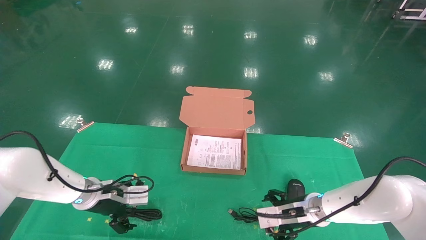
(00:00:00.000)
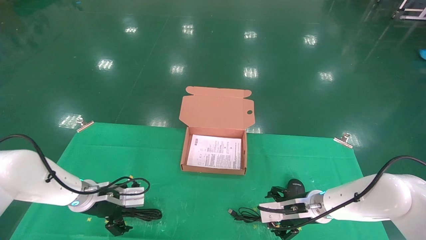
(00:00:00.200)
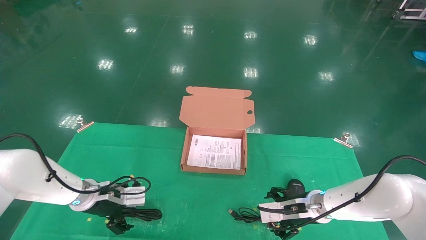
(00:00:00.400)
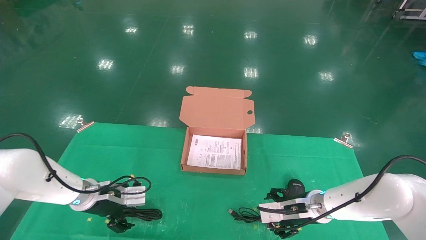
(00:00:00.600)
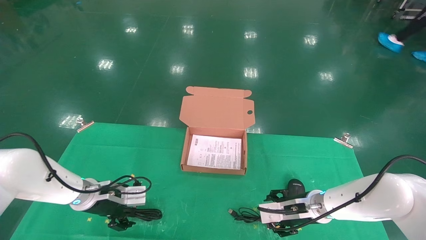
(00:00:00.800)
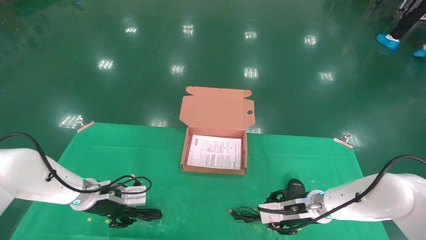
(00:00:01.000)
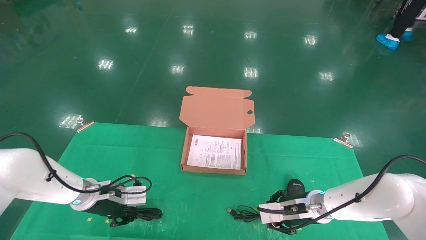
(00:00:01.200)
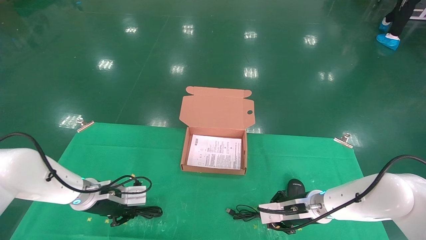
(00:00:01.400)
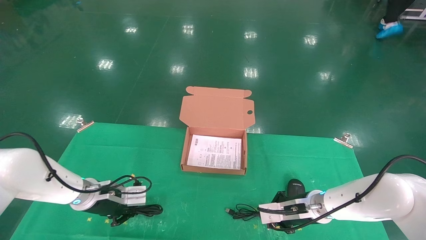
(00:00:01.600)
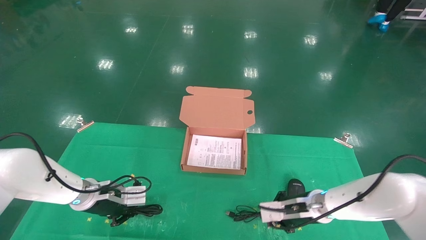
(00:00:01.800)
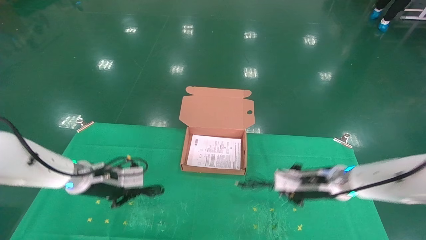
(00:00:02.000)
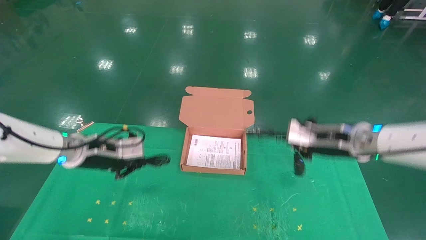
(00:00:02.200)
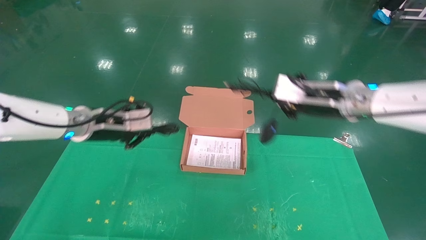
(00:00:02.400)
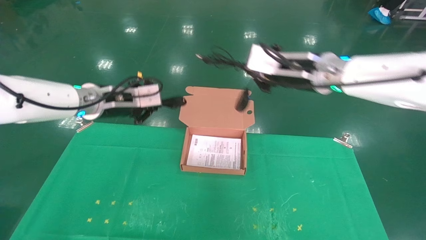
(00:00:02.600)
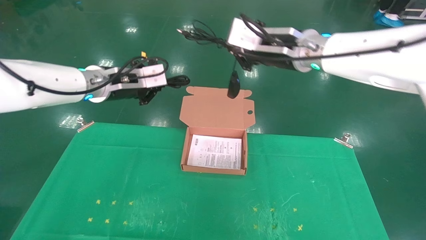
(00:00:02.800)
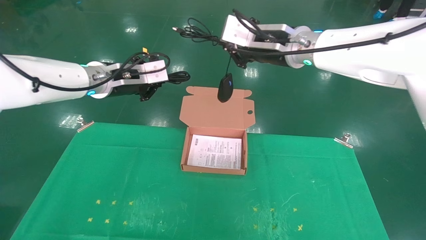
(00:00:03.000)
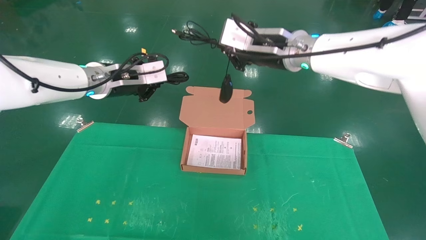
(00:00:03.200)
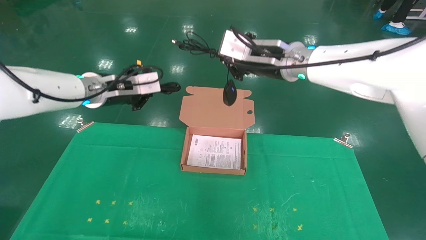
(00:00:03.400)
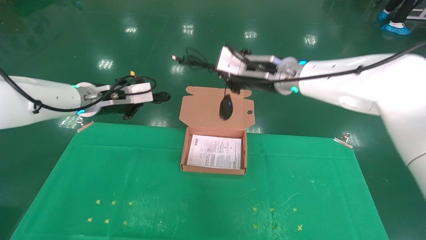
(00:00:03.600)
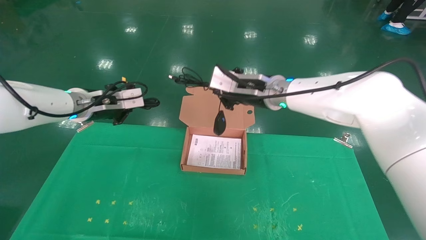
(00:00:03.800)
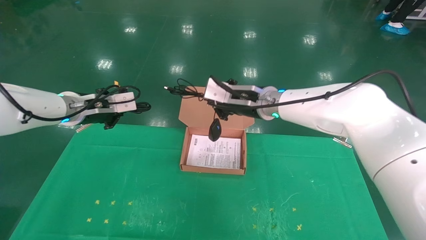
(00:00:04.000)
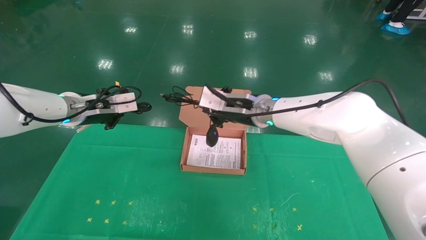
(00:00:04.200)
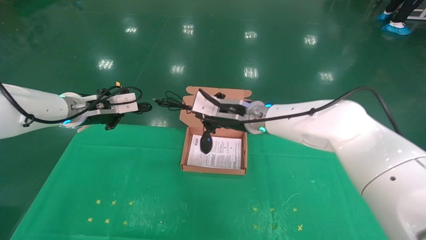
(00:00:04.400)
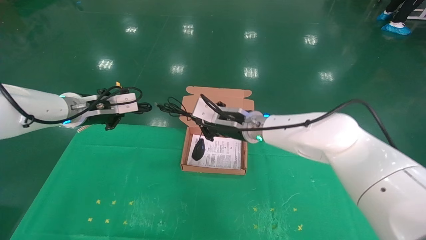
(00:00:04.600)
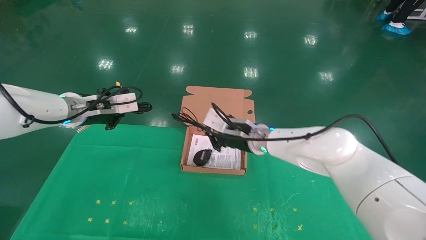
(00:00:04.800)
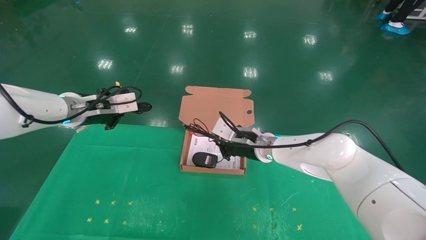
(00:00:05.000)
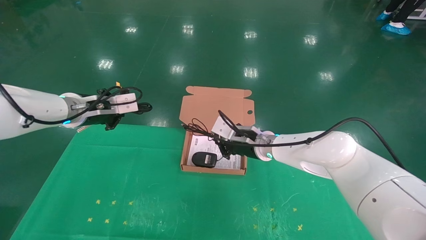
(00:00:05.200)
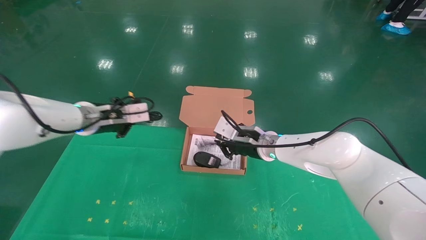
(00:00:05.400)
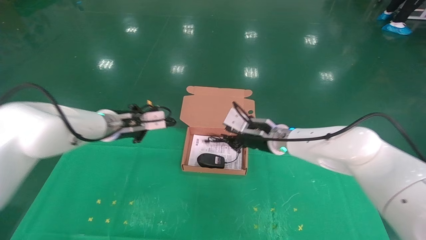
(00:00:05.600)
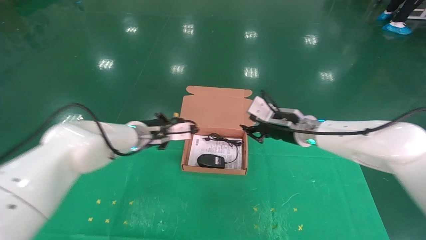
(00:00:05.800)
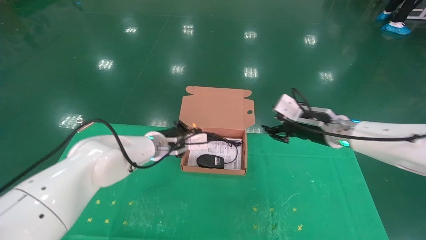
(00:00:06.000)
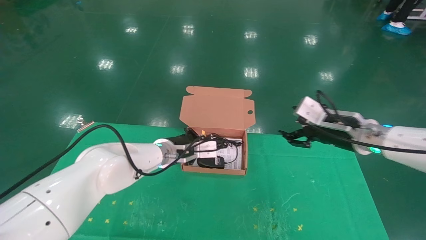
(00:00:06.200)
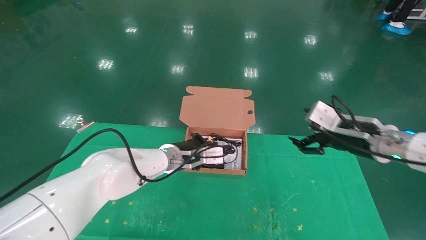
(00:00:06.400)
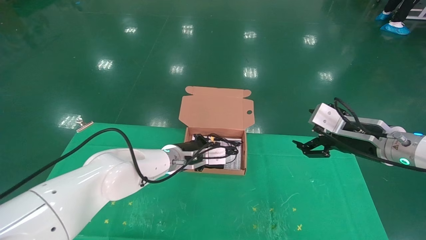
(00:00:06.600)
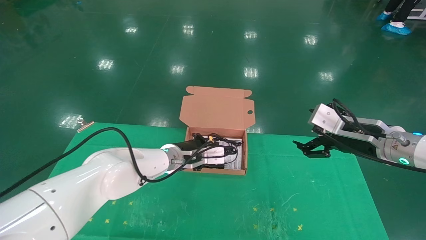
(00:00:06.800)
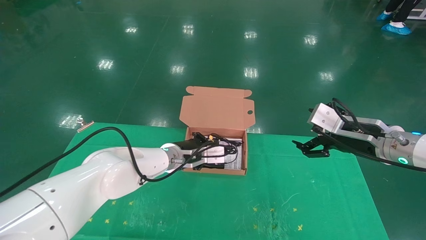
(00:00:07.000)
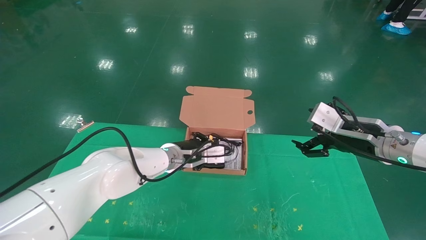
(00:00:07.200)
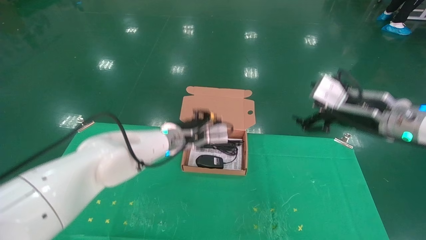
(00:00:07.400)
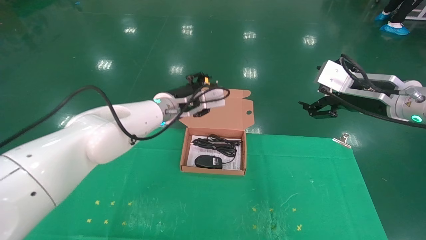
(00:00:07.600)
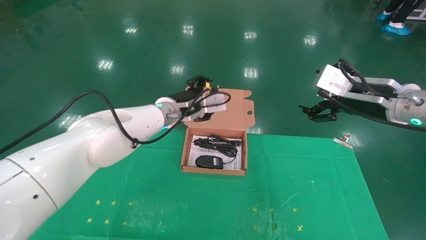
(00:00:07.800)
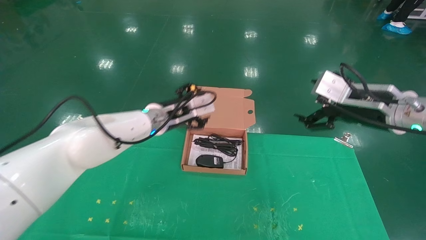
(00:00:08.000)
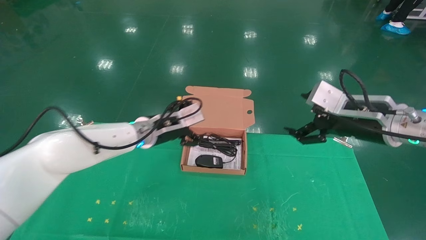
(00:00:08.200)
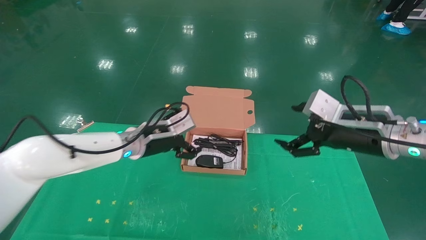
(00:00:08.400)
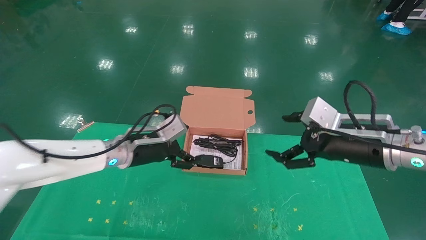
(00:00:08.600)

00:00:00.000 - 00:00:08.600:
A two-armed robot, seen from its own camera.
Task of the whole recording: grasp data cable left put into box grasp mouse right put into box.
Step, 00:00:02.000 - 00:00:07.000: Place the mouse and power cord into the box.
00:00:00.000 - 00:00:01.400: The left gripper closes, while the right gripper closes its fingers.
00:00:01.400 - 00:00:02.800: The grippers both shift upward by roughly 30 cm.
00:00:02.800 - 00:00:04.400: The right gripper is displaced downward and to the left by some 15 cm; the left gripper is displaced to the left by about 5 cm.
00:00:04.400 - 00:00:05.800: The right gripper shifts some 15 cm to the right. Meanwhile the left gripper goes about 15 cm to the right and downward.
00:00:05.800 - 00:00:07.200: The left gripper heads to the right, covering approximately 10 cm; the right gripper travels to the right and backward by approximately 15 cm, and opens its fingers.
00:00:07.200 - 00:00:08.600: The right gripper ends up approximately 5 cm from where it was. Meanwhile the left gripper heads to the left and backward, covering some 10 cm, and opens its fingers.
